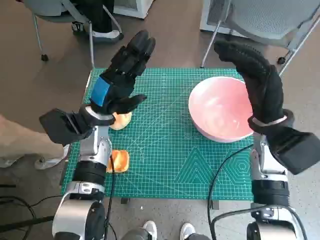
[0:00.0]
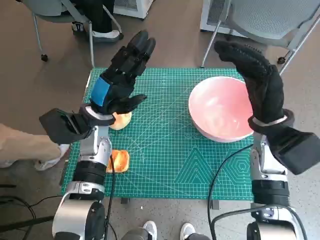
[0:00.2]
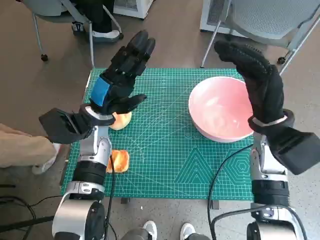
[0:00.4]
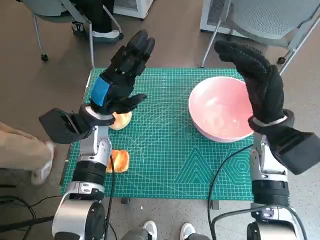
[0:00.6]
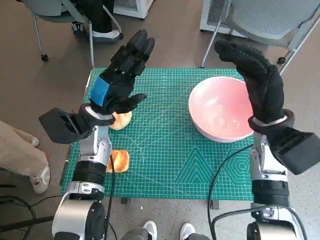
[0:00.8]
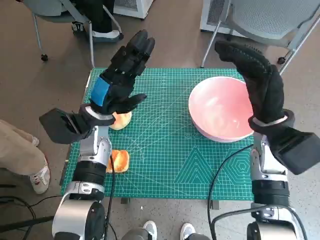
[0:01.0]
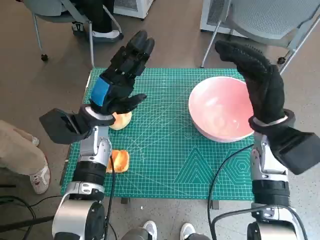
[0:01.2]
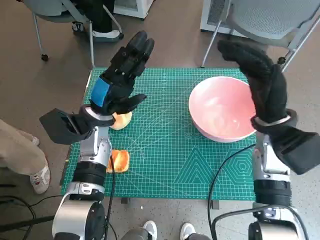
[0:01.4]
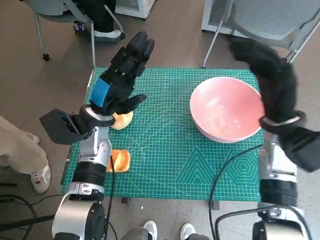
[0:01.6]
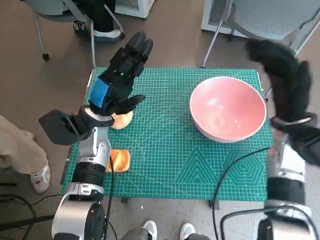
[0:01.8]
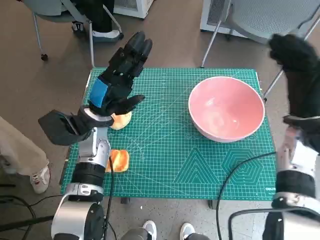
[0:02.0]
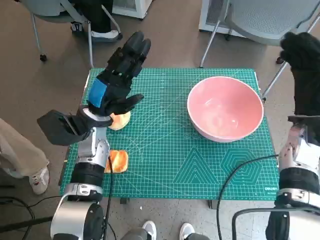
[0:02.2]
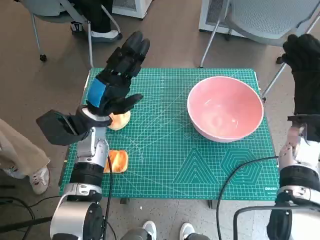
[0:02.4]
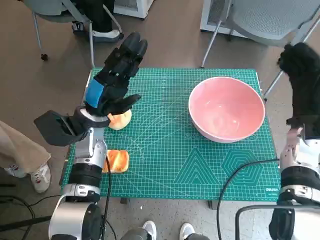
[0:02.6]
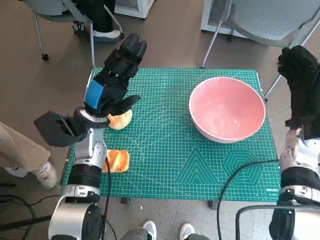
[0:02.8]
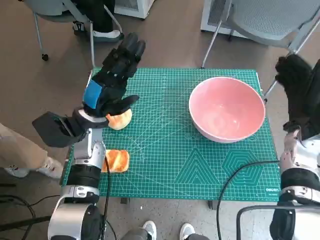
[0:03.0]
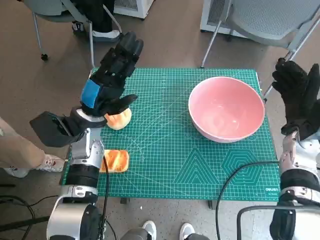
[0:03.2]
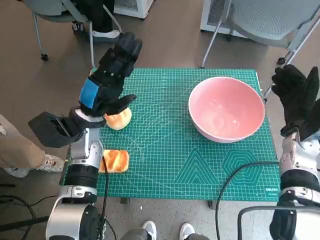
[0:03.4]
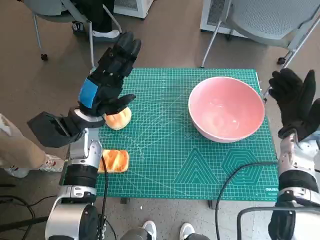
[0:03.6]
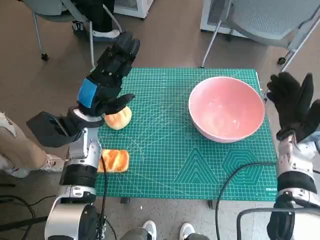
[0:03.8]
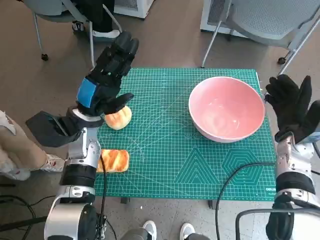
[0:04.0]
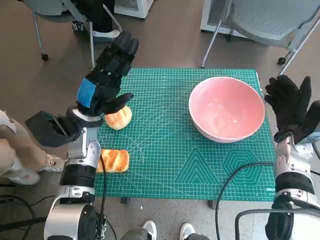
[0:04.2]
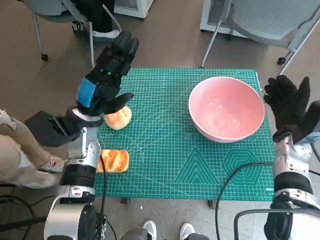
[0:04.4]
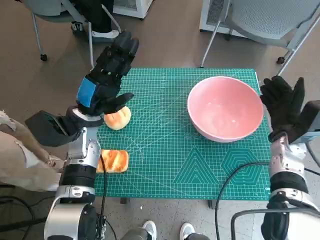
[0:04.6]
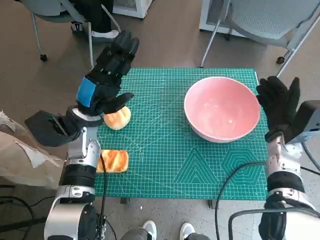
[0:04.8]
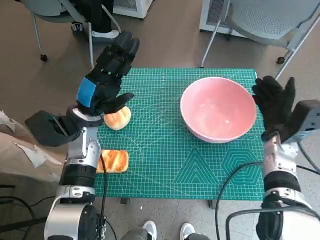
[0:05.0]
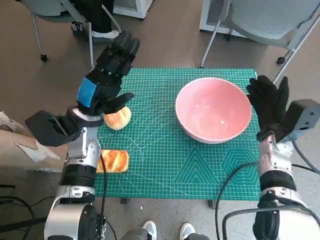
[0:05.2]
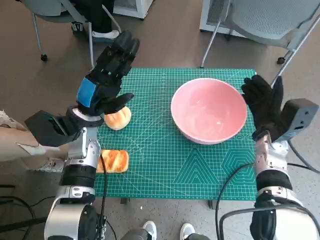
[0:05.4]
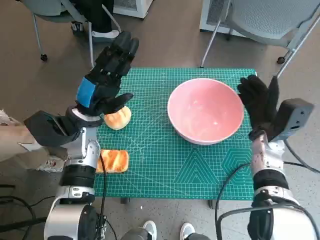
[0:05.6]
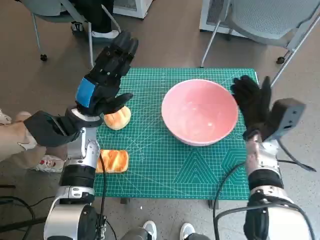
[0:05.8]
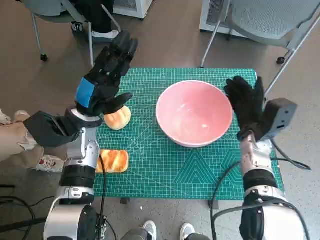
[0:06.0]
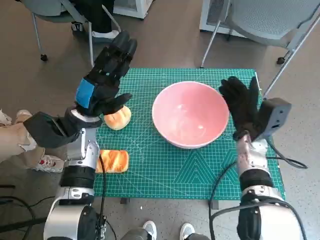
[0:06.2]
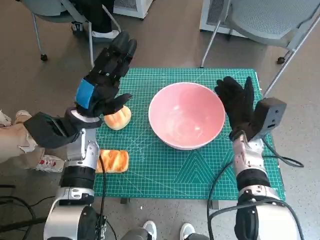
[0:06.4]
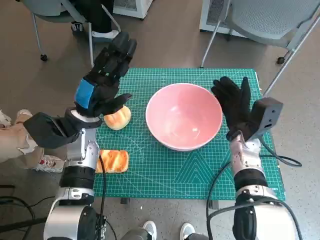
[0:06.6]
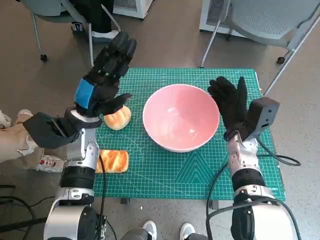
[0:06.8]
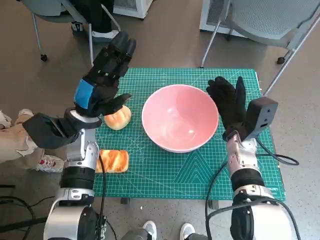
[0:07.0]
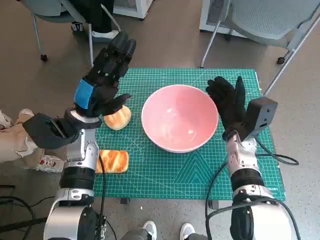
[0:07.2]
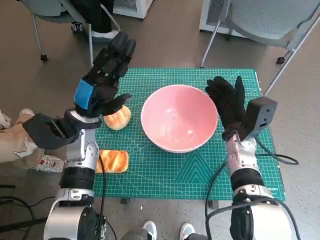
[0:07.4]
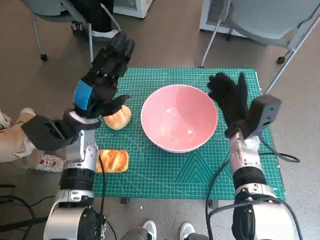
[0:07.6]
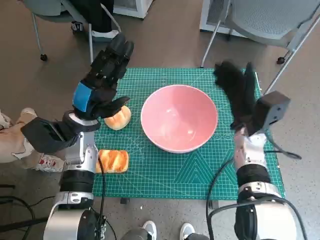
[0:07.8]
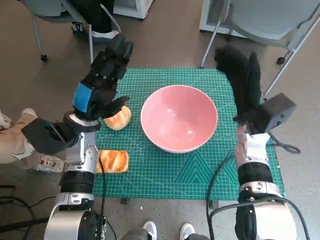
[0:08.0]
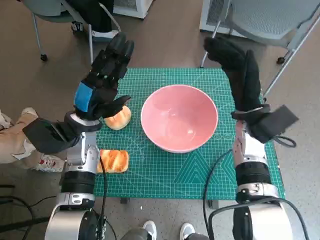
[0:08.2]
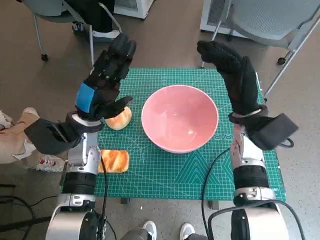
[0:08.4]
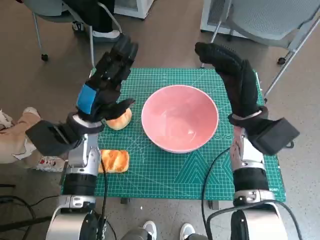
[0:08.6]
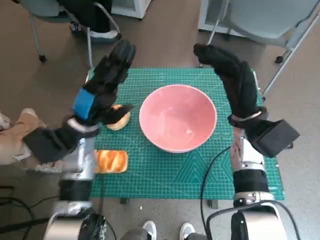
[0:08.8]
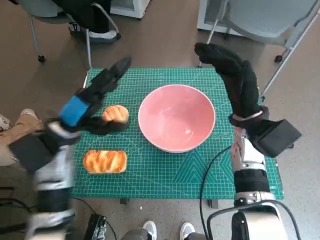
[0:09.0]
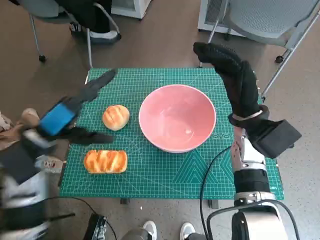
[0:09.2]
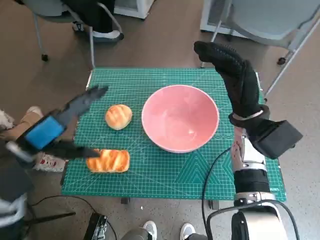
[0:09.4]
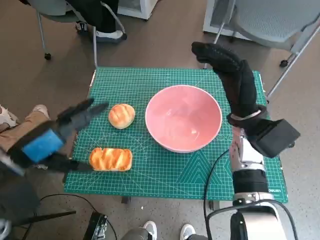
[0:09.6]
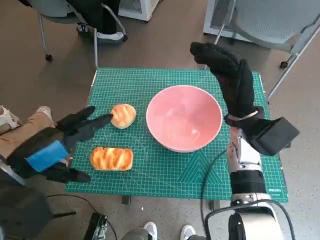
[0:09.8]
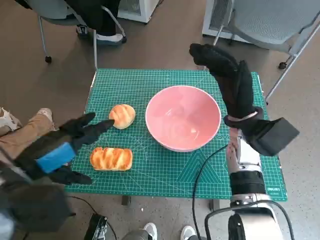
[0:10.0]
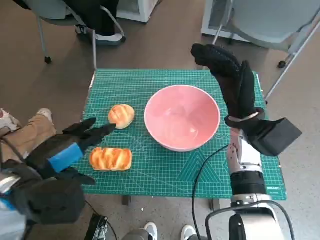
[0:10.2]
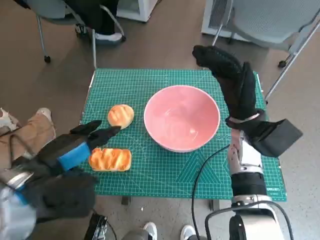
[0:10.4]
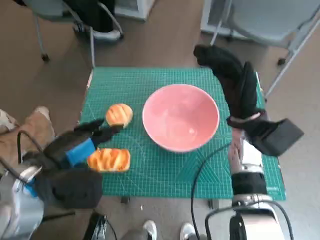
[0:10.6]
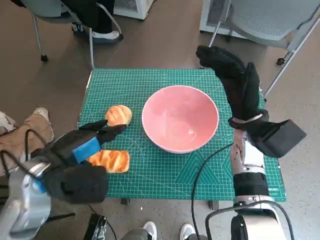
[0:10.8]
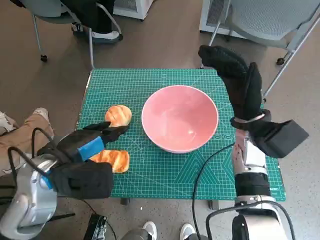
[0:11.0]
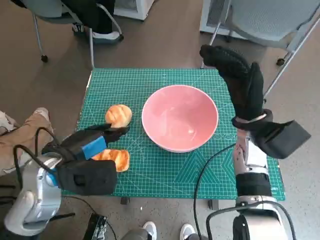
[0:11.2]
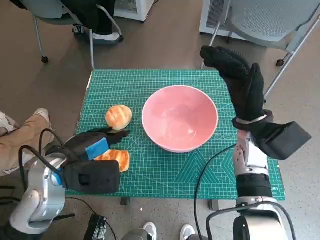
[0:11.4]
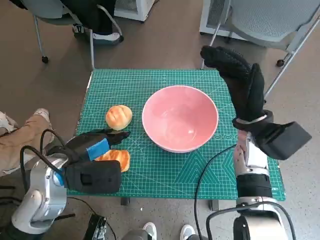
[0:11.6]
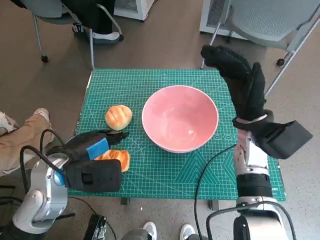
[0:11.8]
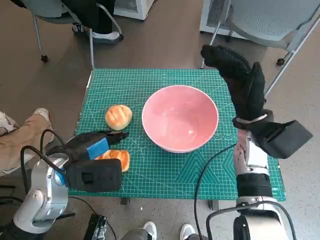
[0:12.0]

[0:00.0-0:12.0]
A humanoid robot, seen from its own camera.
Step, 0:00.0 to 0:07.6: Move the pink bowl to the center of table with right hand.
0:01.6 to 0:03.0: The right hand goes approximately 5 cm to the right.
0:03.0 to 0:04.4: The hands stay close to where they were, moving slightly.
0:04.4 to 0:06.0: The right hand is displaced to the left by some 5 cm.
0:06.0 to 0:07.6: There are only small adjustments of the hands.
0:07.6 to 0:09.0: The right hand shifts roughly 5 cm upward.
0:09.0 to 0:10.4: The left hand travels backward by about 10 cm.
0:10.4 to 0:12.0: The left hand moves some 5 cm.

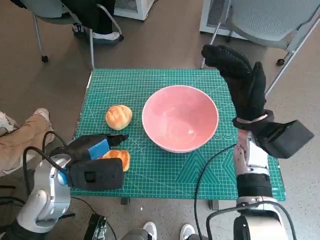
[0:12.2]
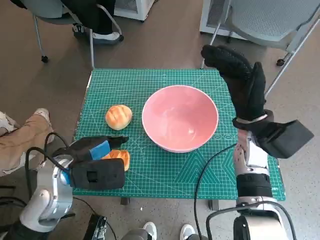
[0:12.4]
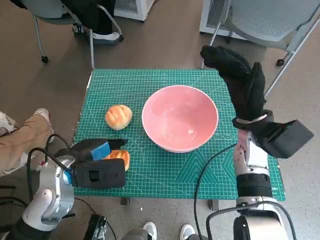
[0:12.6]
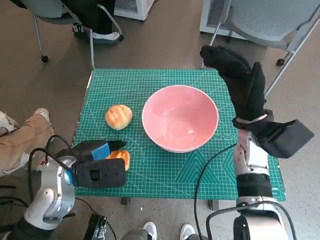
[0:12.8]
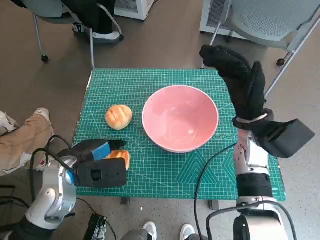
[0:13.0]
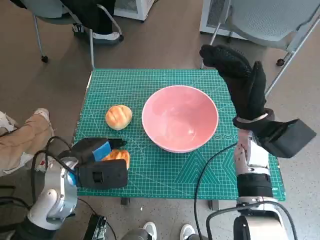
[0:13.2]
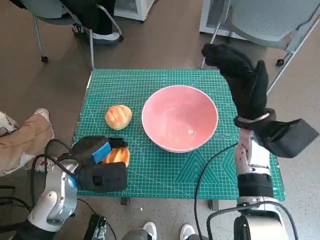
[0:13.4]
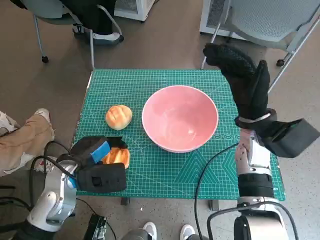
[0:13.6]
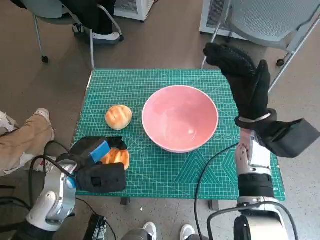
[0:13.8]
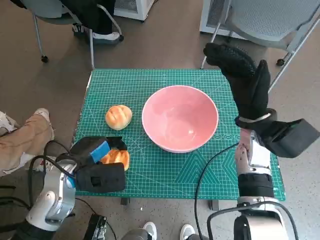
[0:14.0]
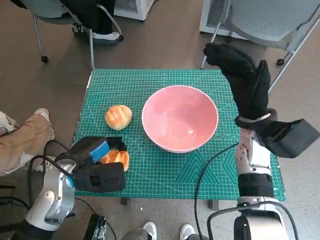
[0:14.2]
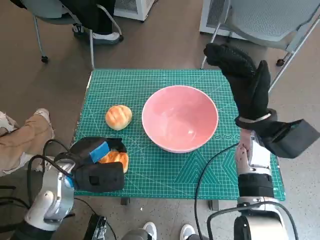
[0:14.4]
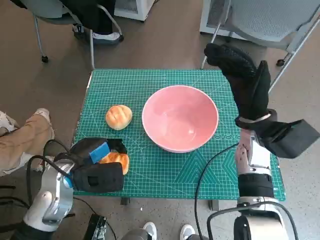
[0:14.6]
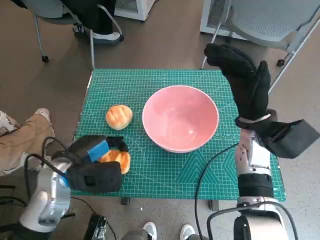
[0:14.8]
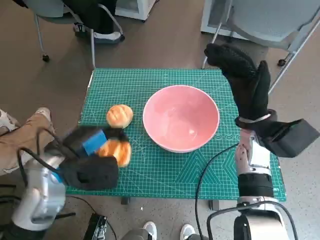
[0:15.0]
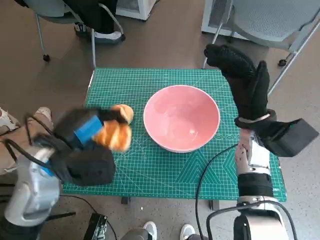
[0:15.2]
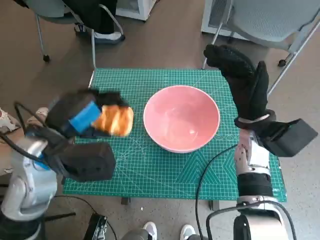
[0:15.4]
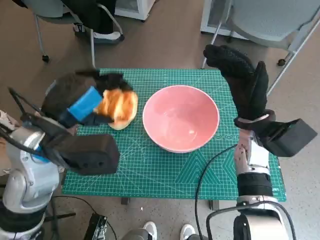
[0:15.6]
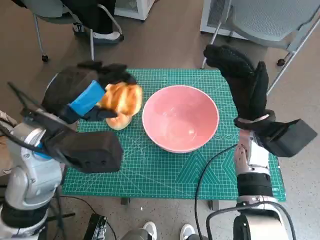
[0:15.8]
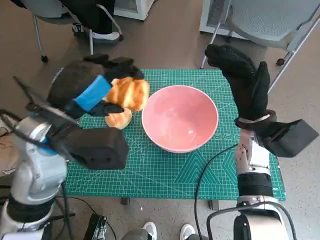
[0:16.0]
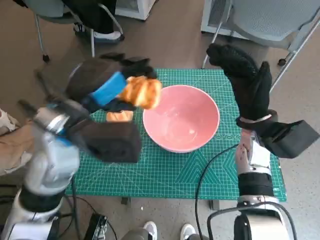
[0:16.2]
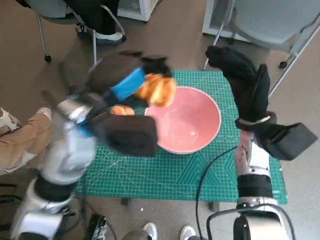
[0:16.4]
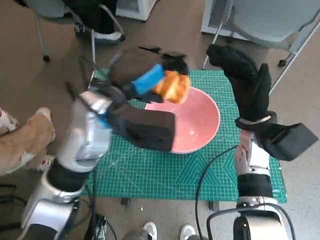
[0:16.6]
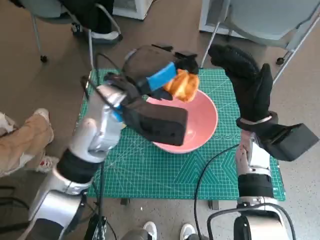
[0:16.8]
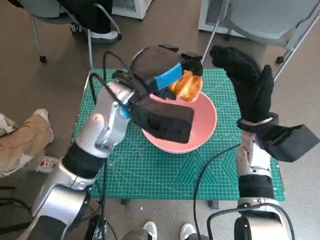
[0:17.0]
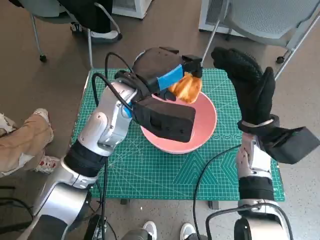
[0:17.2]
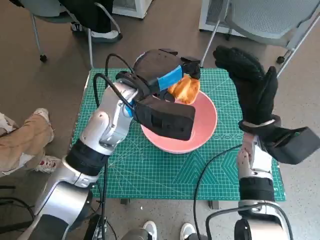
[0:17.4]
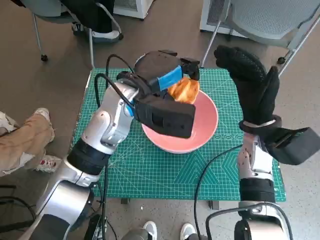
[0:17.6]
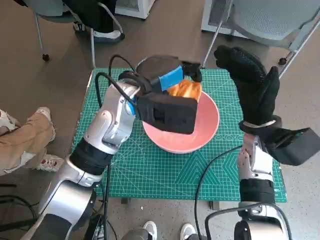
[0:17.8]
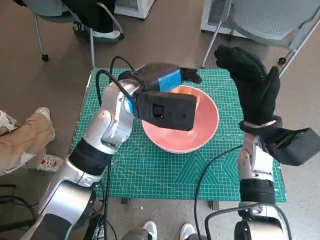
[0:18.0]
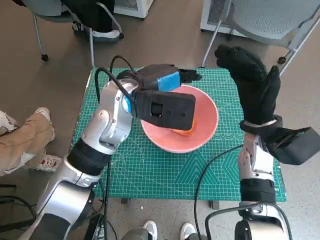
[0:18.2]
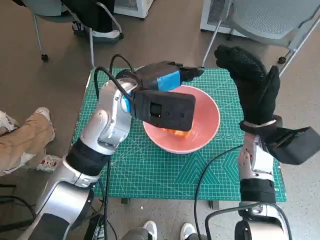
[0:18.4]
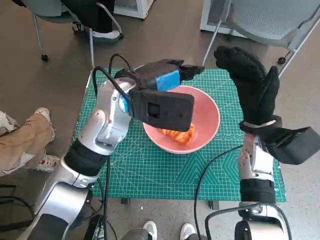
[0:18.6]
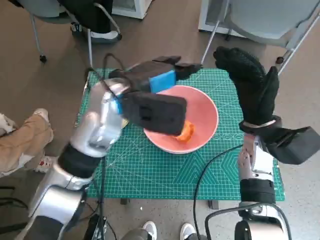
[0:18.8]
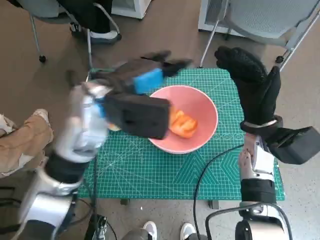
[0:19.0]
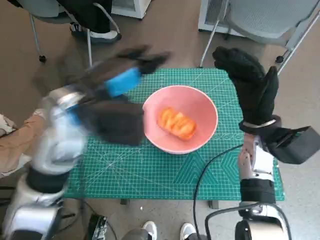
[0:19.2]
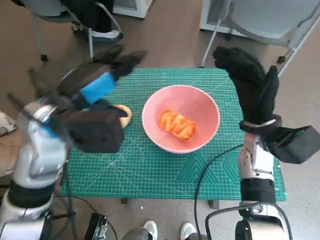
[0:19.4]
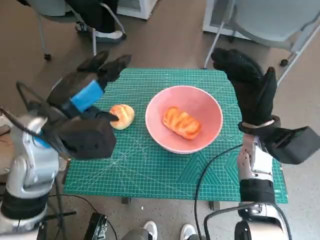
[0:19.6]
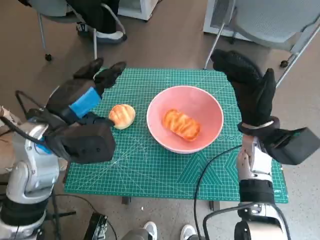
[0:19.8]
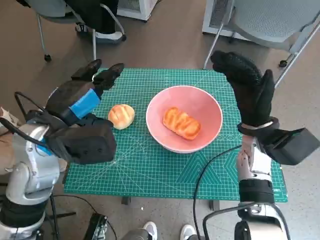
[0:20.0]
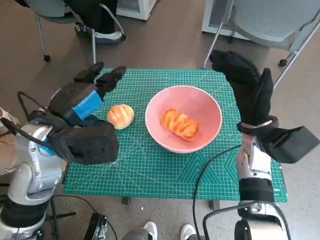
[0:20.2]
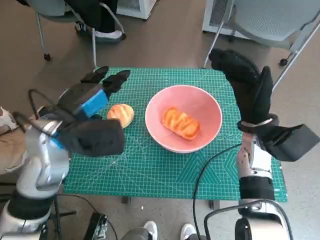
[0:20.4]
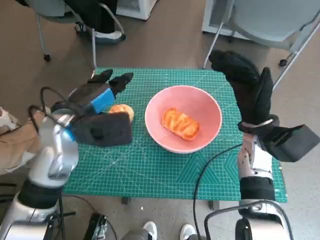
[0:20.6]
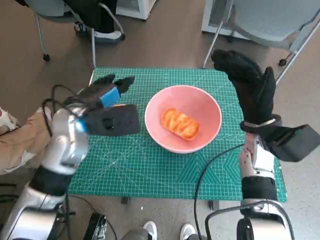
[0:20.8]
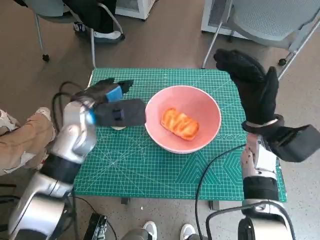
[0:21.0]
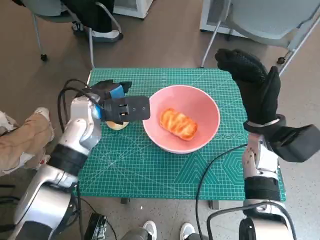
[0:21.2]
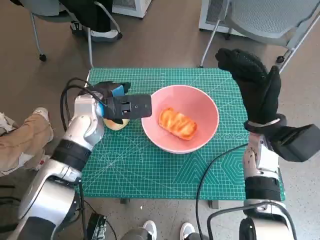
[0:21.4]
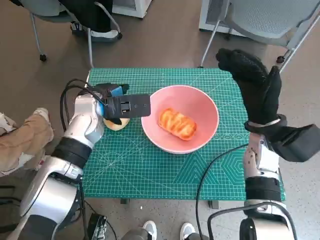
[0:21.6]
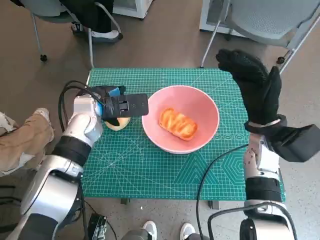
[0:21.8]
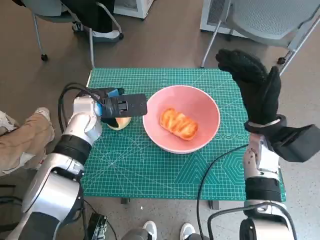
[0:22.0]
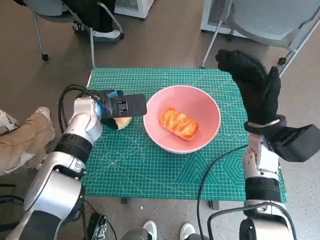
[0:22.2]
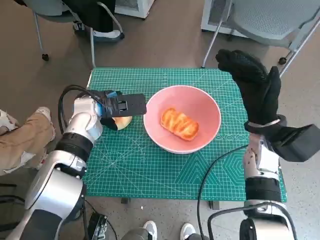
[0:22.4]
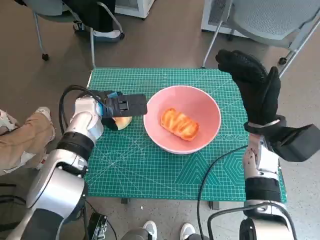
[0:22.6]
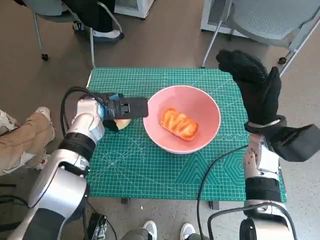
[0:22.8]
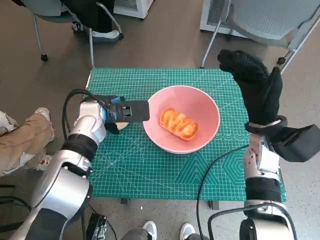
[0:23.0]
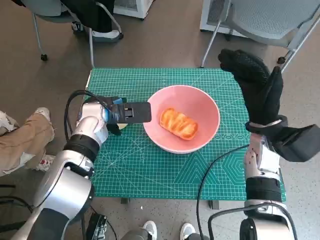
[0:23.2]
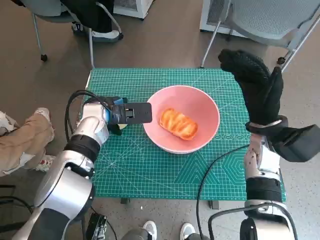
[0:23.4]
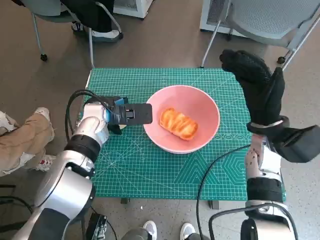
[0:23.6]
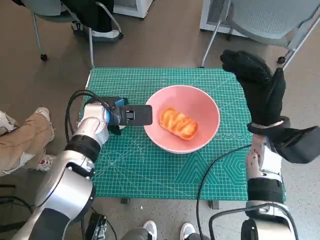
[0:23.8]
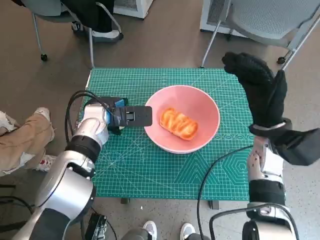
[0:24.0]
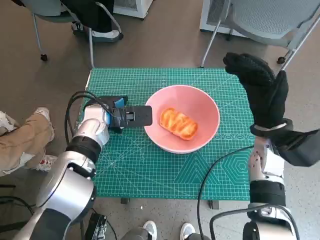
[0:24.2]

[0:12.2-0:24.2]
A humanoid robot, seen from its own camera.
Step, 0:12.2 to 0:14.2: Grasp the long bread with left hand.
Step, 0:14.4 to 0:18.2: Place the long bread in pink bowl with left hand.
0:12.2 to 0:13.8: The hands stay close to where they were, moving slightly.
0:13.8 to 0:15.2: The left hand goes some 10 cm upward.
0:15.2 to 0:16.6: The left hand moves to the right, upward and forward, roughly 10 cm.
0:16.6 to 0:18.2: The left hand changes place by approximately 5 cm.
0:18.2 to 0:19.8: The left hand is displaced to the left and backward by some 15 cm.
0:19.8 to 0:21.2: The left hand heads forward and downward, covering some 10 cm.
0:21.2 to 0:24.2: The hands make only small movements.
